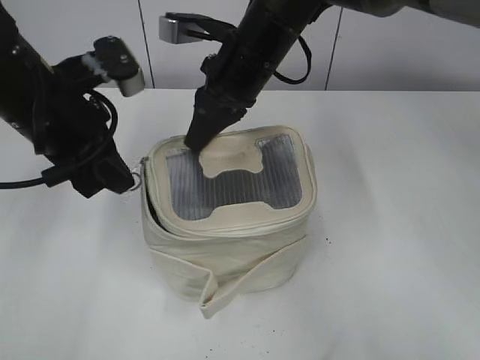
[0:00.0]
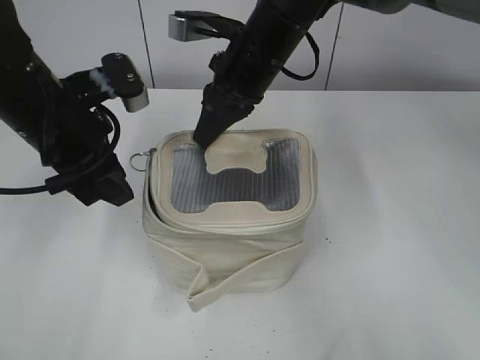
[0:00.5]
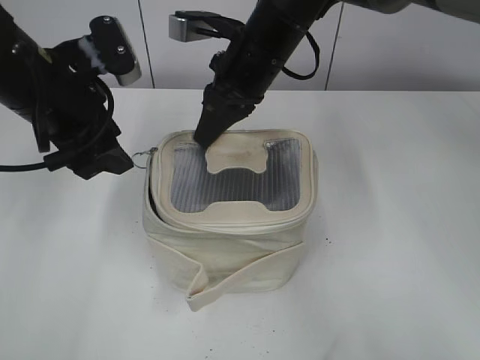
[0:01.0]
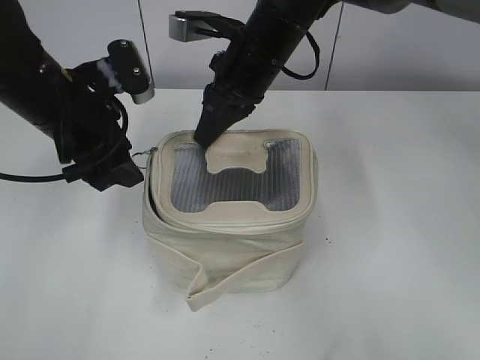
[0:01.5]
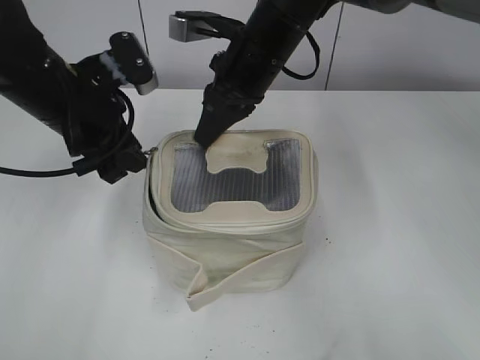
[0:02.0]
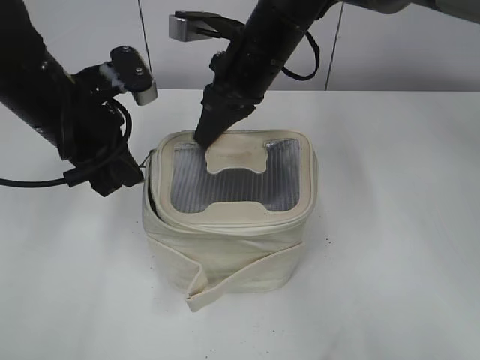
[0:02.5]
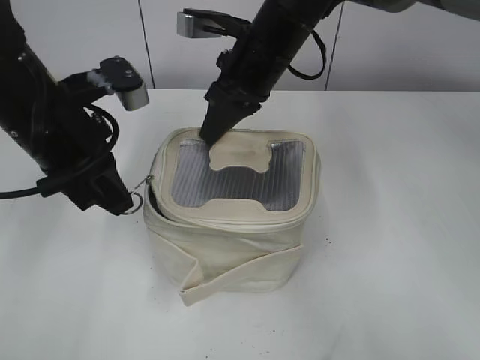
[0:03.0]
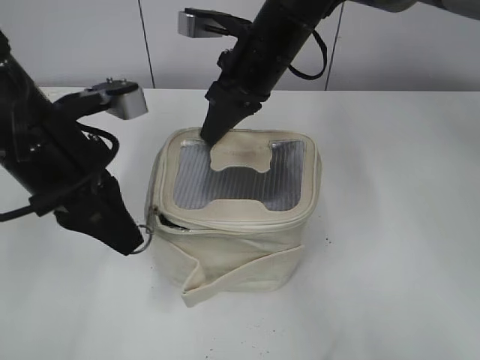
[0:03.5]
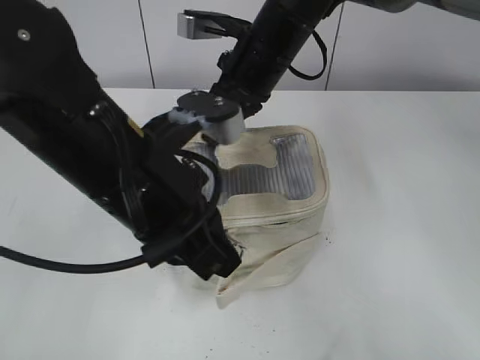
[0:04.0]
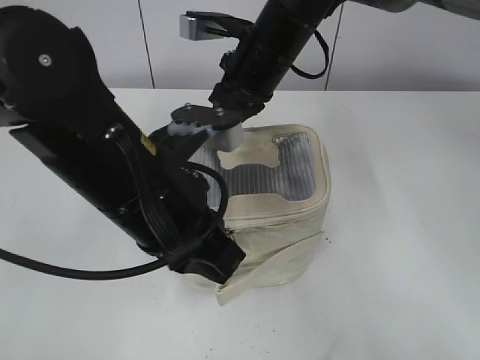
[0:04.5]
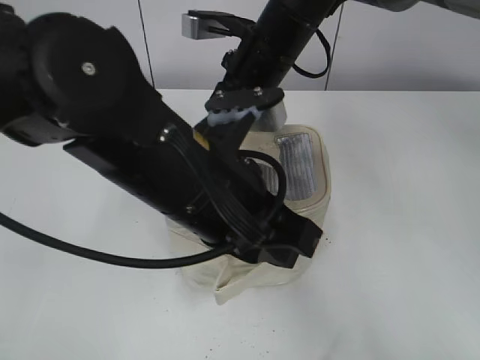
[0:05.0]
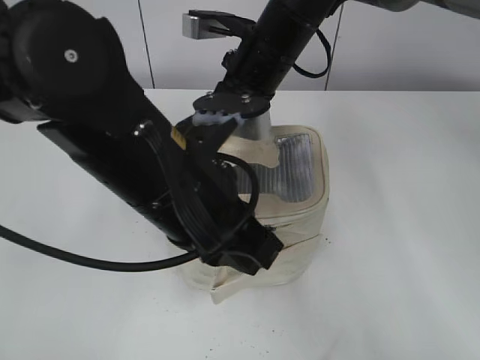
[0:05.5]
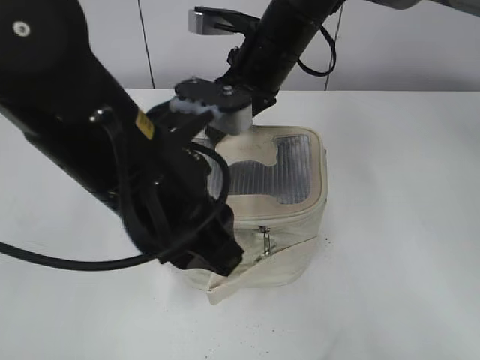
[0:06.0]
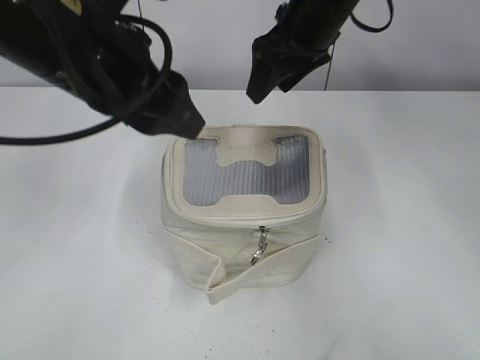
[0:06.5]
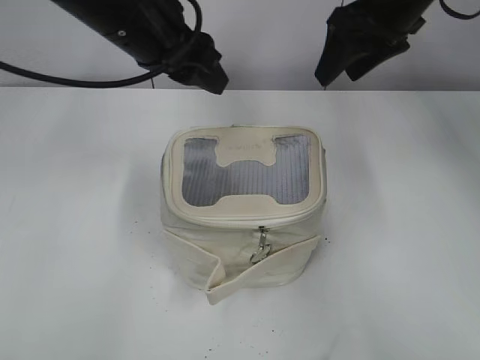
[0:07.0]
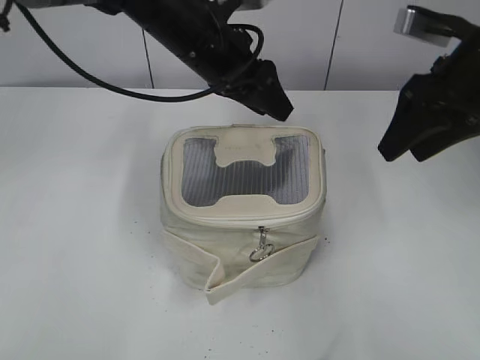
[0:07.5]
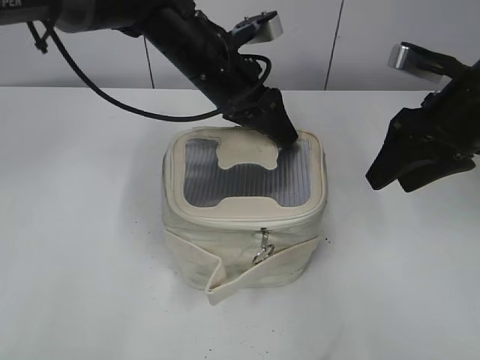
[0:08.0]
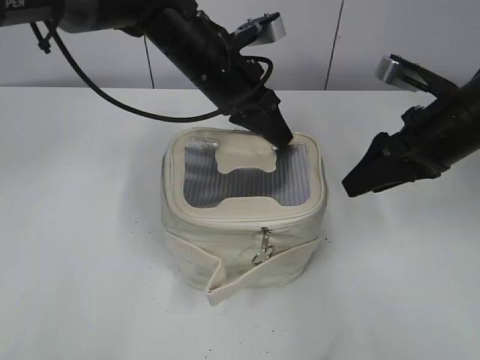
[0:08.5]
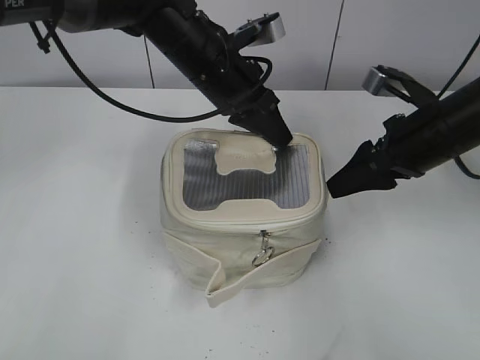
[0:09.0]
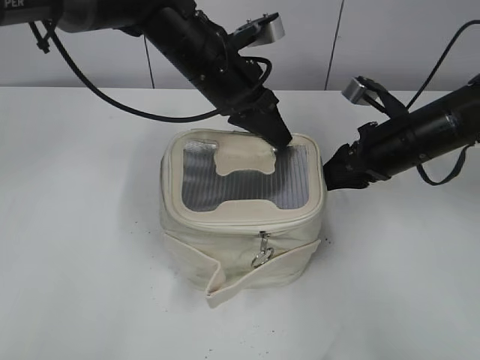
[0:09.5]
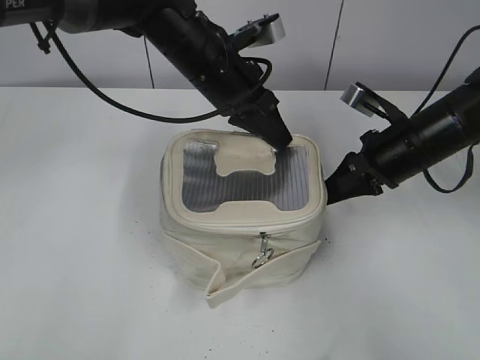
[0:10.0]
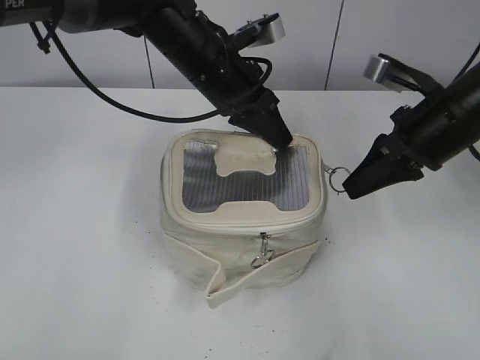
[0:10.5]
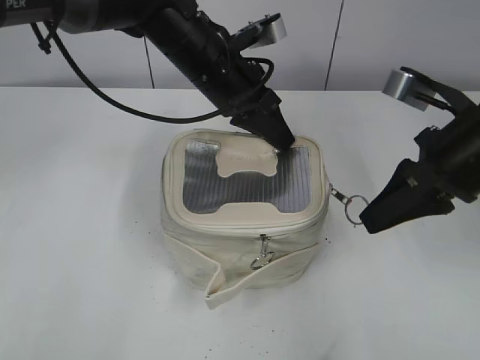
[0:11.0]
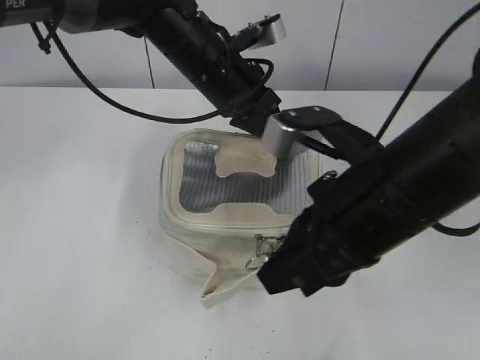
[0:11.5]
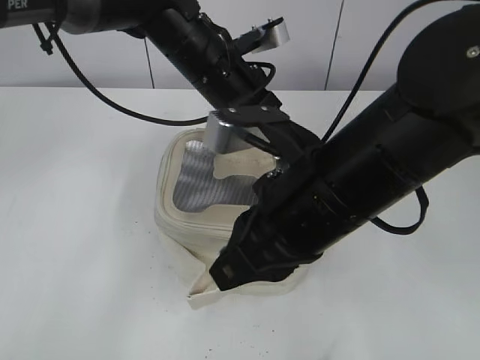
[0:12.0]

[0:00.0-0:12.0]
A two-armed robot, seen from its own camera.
Step, 0:00.0 to 0:04.5: Zip up the bag with your left hand.
Step, 0:05.0 to 0:06.5: Hold the bag with your right hand.
0:00.0 to 0:02.0: The left gripper opens its fingers.
0:02.0 to 0:04.0: The left gripper goes about 15 cm backward and to the right, and closes.
0:04.0 to 0:06.0: The right gripper opens its fingers, while the left gripper opens up.
0:06.0 to 0:08.0: The left gripper moves forward, approximately 20 cm. The right gripper goes some 20 cm to the right and backward.
0:08.0 to 0:10.0: The right gripper is displaced downward by about 10 cm, and closes. Meanwhile the left gripper closes up.
0:10.0 to 0:12.0: The right gripper moves backward, to the left and upward, about 20 cm.

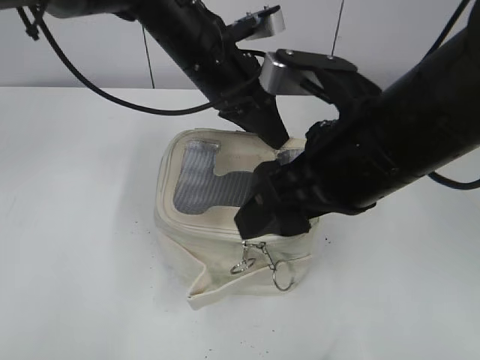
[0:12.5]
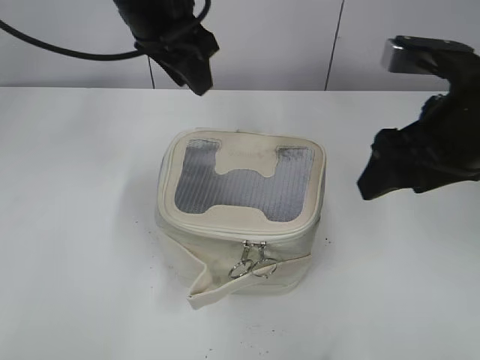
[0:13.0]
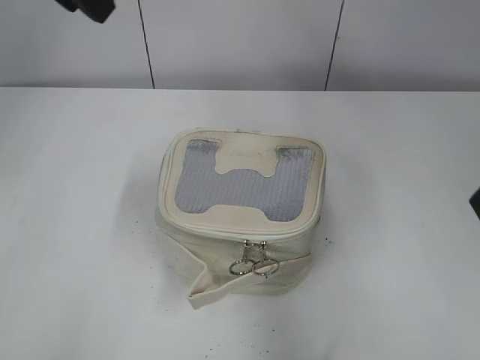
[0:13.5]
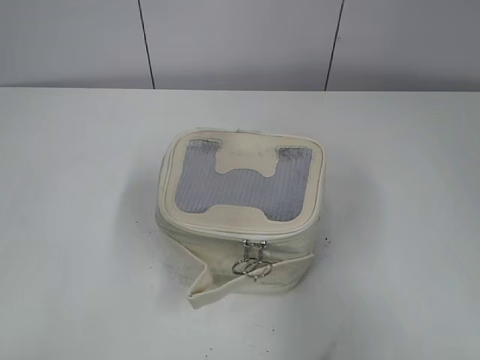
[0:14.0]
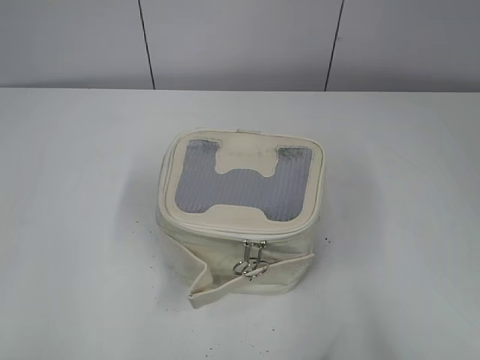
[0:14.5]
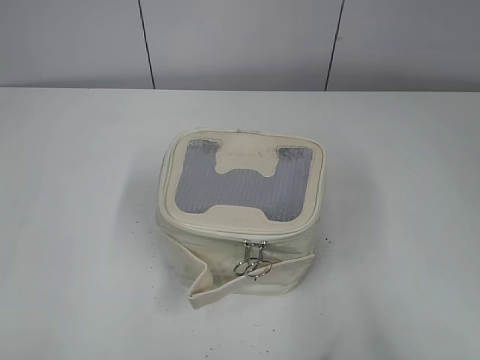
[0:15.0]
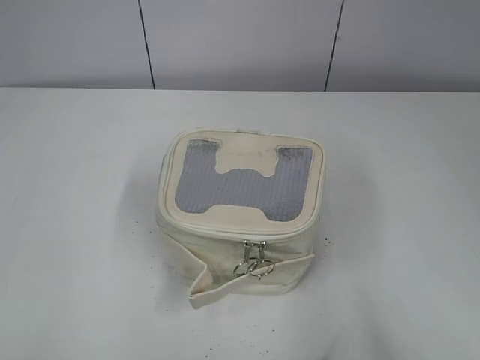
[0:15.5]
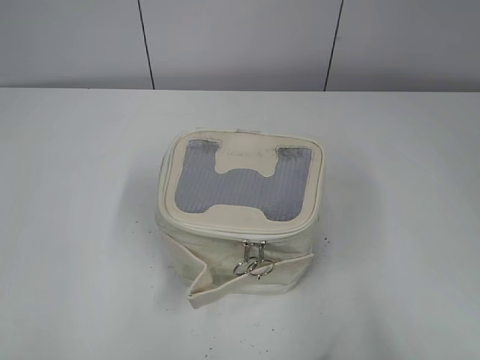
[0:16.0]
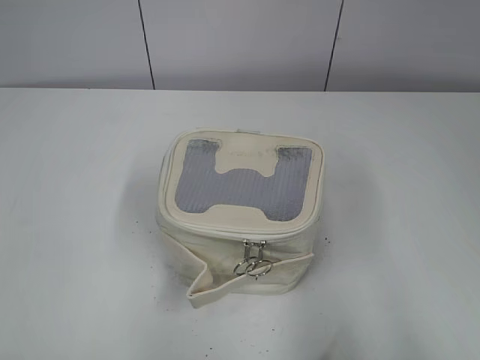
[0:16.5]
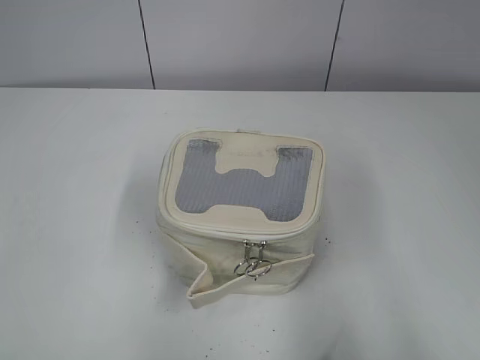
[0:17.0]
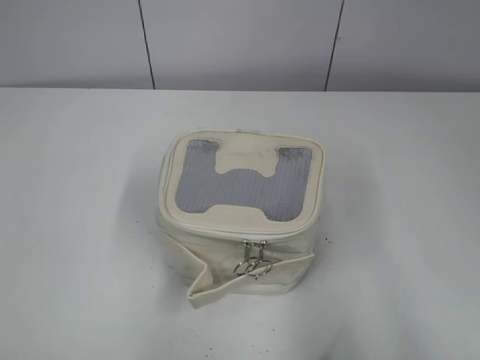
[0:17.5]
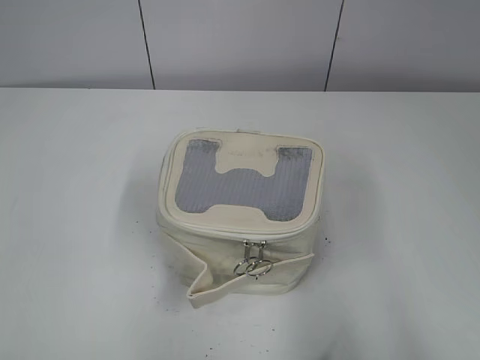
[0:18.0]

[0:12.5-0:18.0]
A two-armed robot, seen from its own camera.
0:12.5 to 0:14.5: The right gripper goes some 30 cm backward and to the right. The left gripper goes about 50 cm backward and to the left.

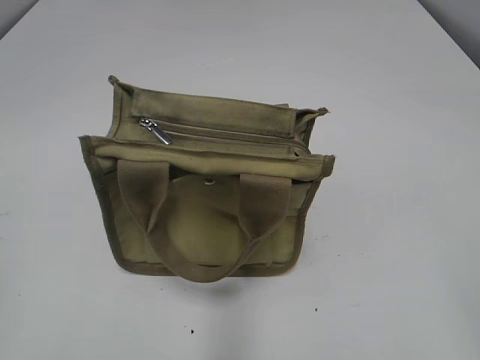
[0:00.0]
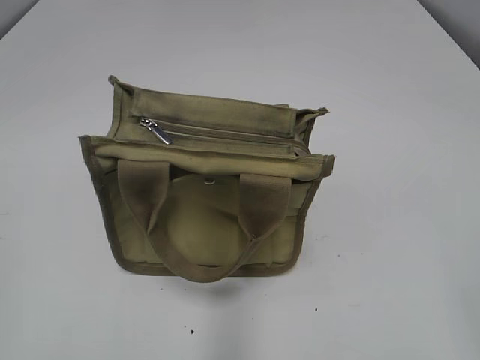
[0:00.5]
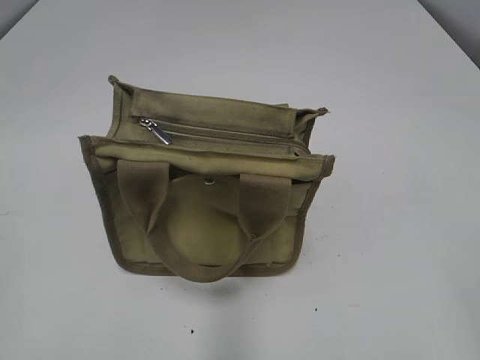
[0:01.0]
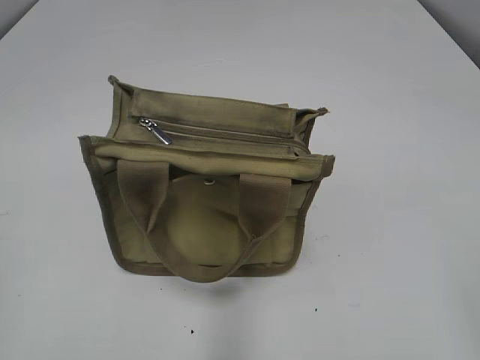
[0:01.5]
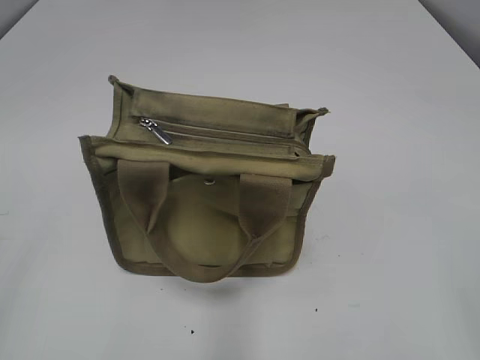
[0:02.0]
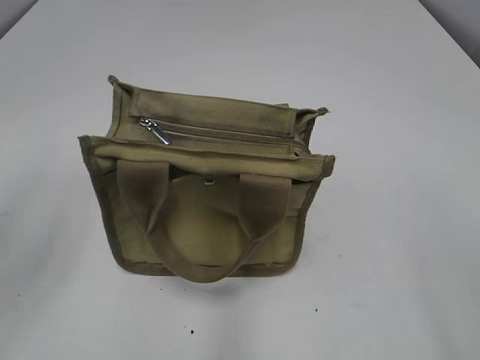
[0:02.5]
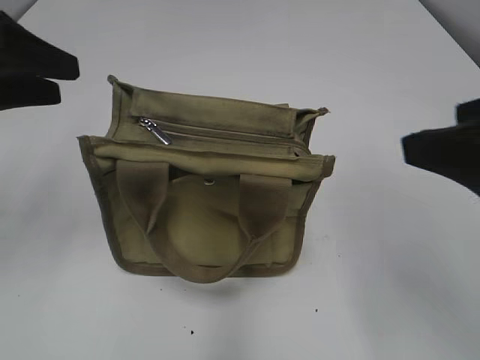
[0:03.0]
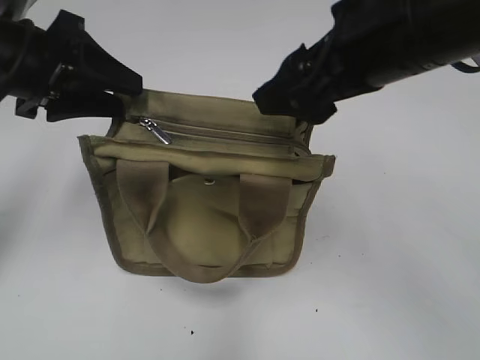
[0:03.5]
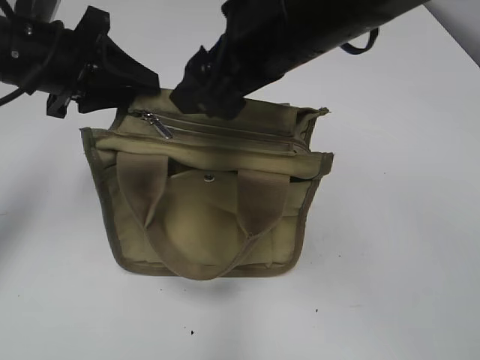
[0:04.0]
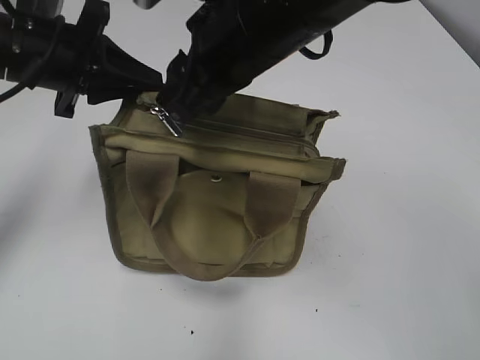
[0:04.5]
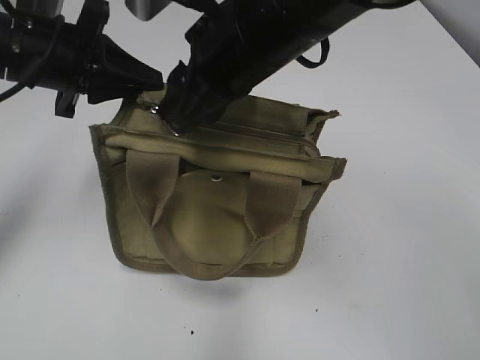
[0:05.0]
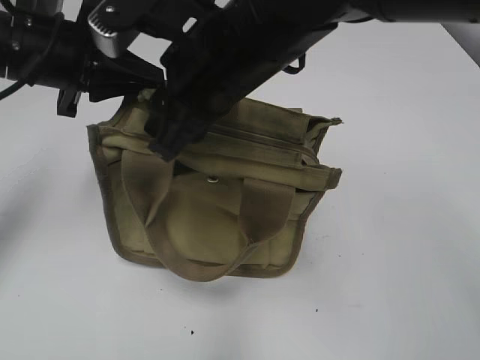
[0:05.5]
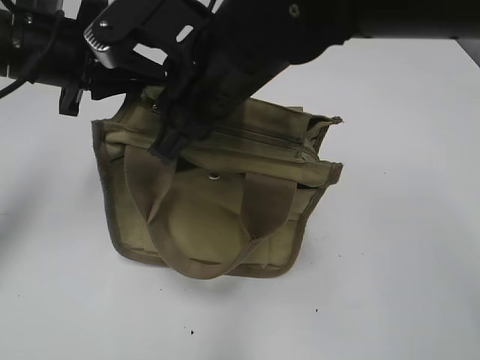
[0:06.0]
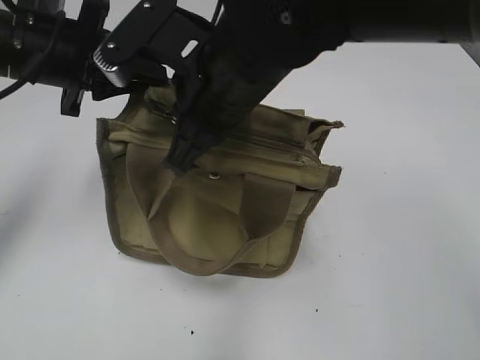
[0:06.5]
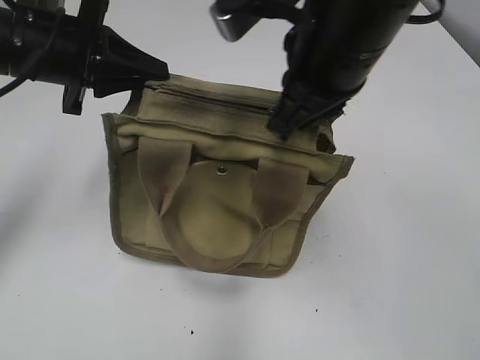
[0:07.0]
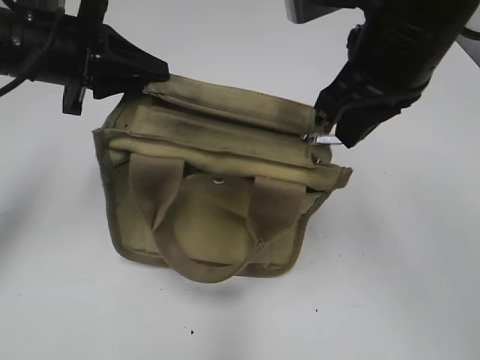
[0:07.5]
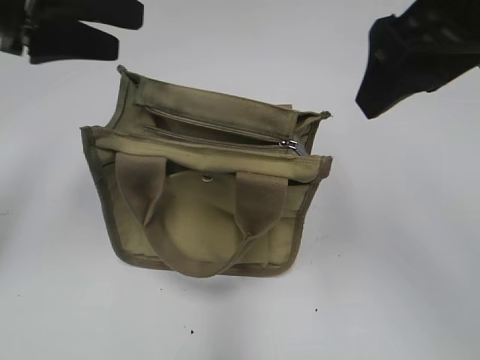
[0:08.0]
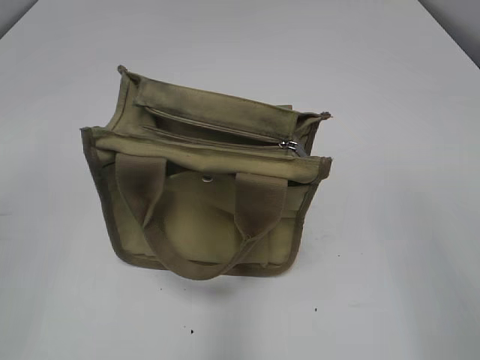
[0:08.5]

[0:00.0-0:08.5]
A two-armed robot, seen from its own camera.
Step, 0:00.0 to 0:07.5: Pull open the zipper with your right hand.
0:02.0 to 0:04.0: The right gripper is displaced forward and to the left by roughly 35 cm; the left gripper travels forward by some 30 cm.
0:04.0 to 0:06.5: The right gripper changes place by some 5 cm, and closes up. The left gripper closes.
0:06.5 to 0:08.5: The right gripper goes roughly 30 cm to the right and backward, and opens its fingers, while the left gripper travels backward, upward and to the left by approximately 30 cm, and opens up.
